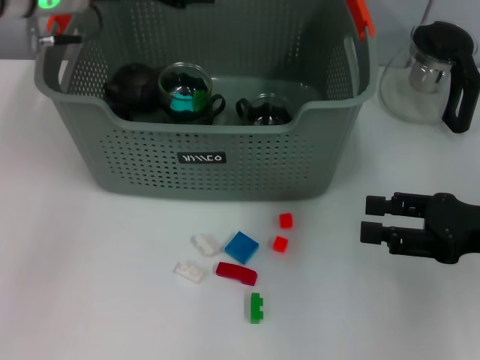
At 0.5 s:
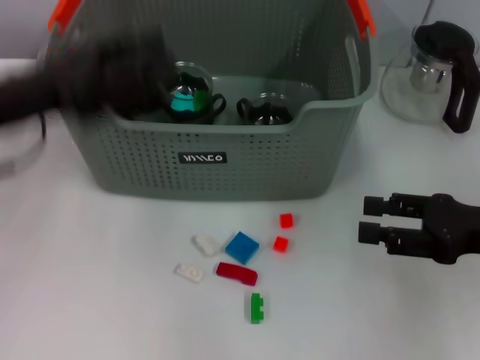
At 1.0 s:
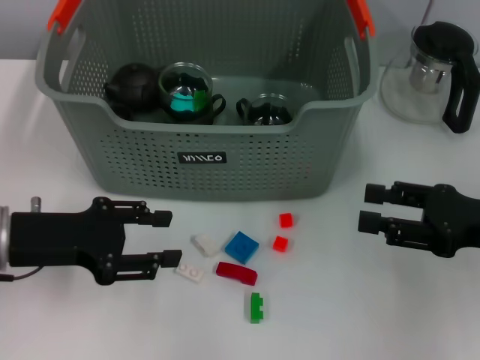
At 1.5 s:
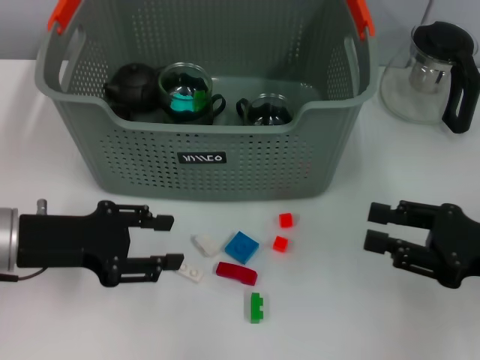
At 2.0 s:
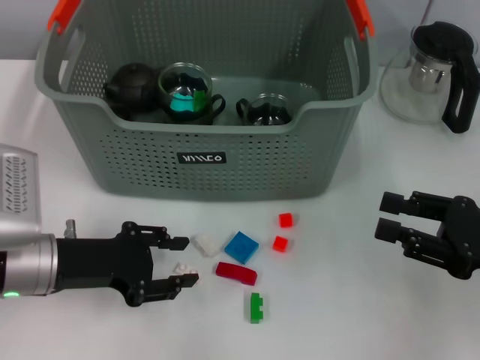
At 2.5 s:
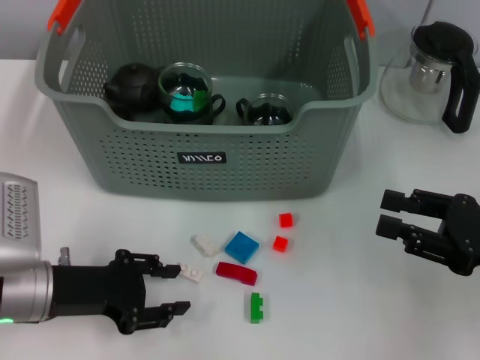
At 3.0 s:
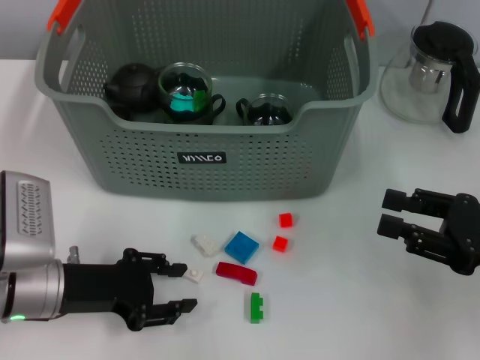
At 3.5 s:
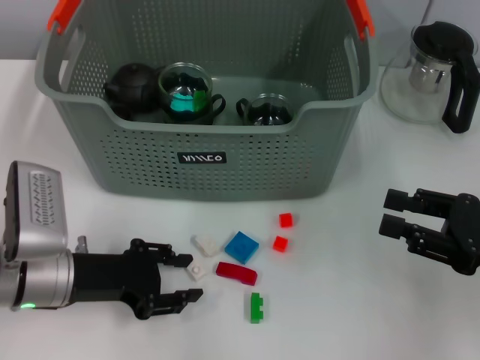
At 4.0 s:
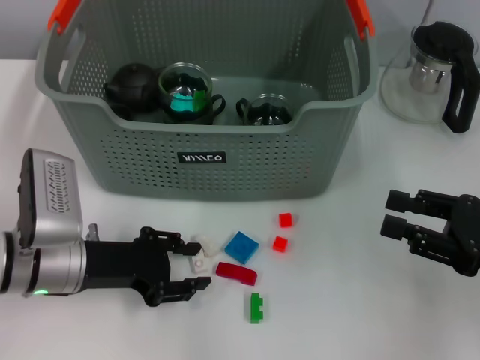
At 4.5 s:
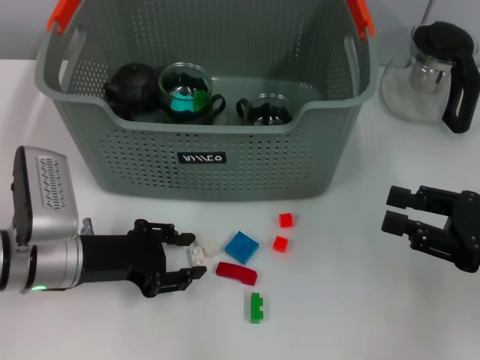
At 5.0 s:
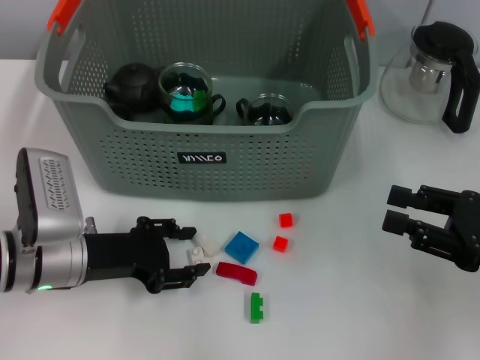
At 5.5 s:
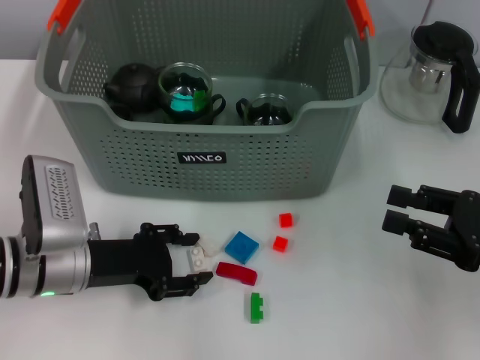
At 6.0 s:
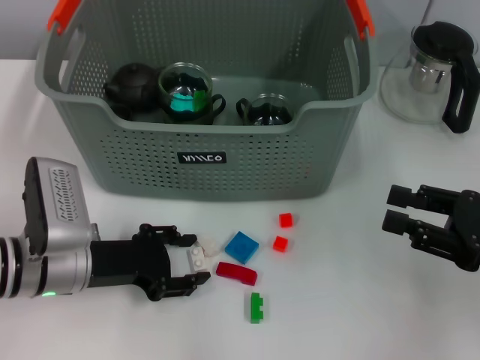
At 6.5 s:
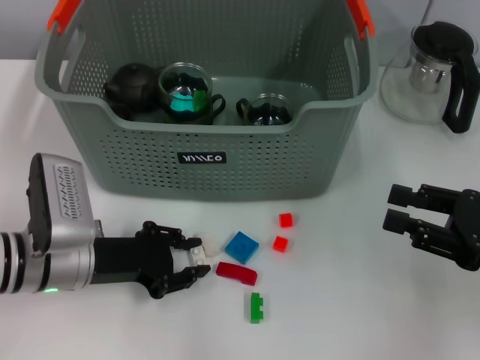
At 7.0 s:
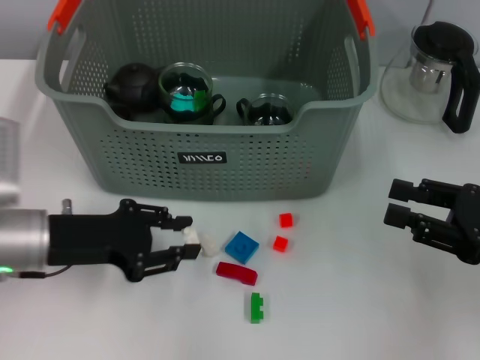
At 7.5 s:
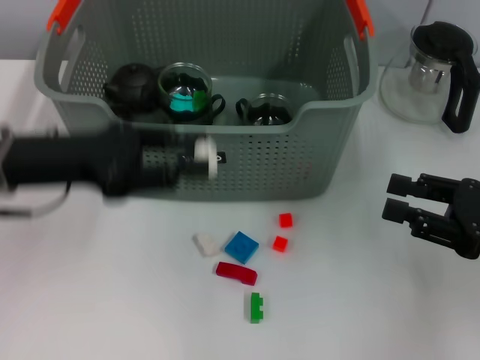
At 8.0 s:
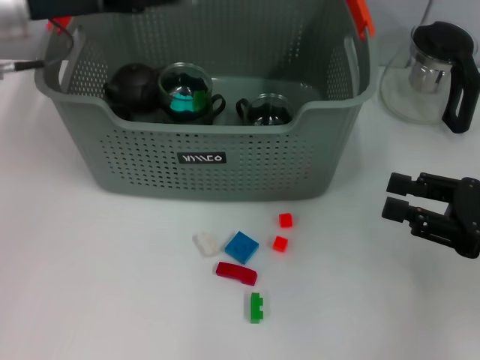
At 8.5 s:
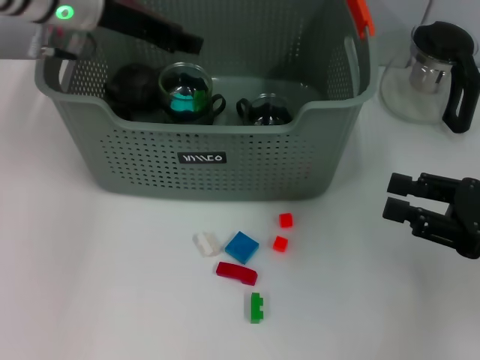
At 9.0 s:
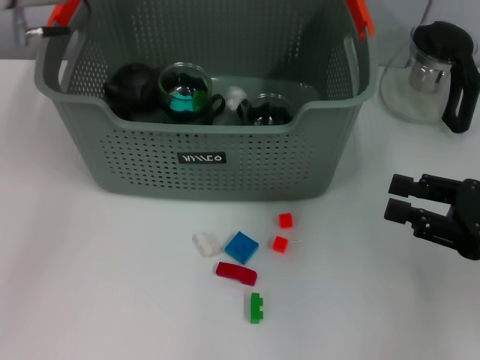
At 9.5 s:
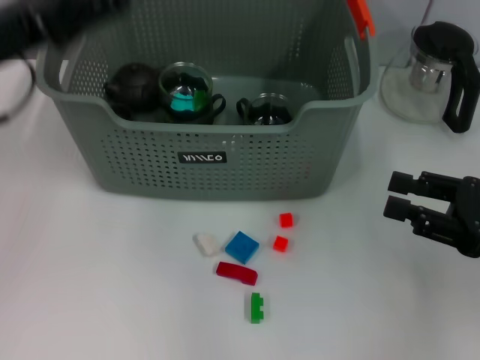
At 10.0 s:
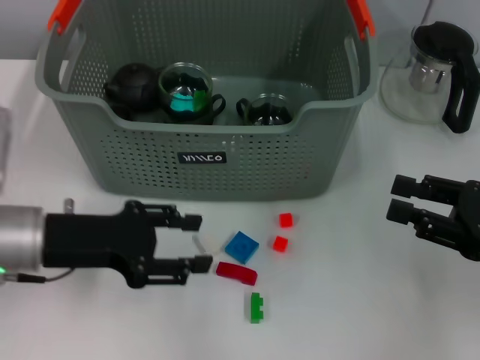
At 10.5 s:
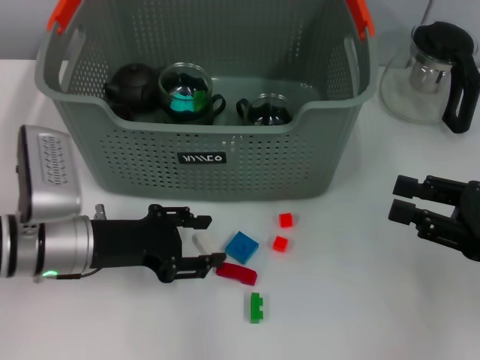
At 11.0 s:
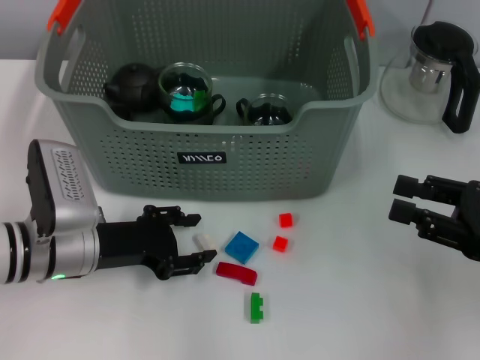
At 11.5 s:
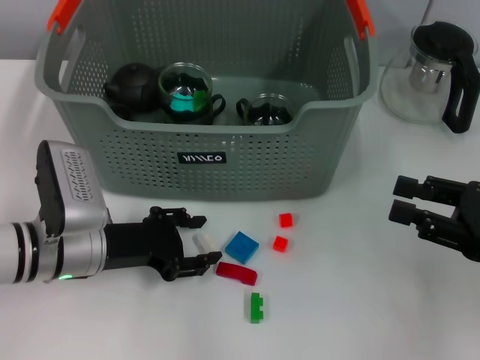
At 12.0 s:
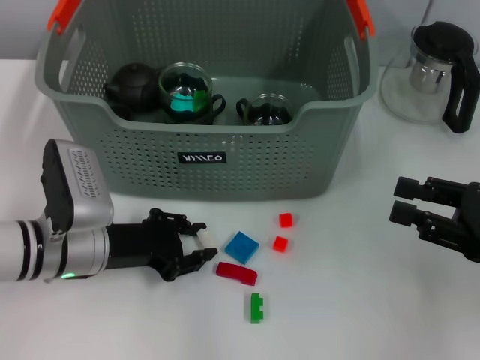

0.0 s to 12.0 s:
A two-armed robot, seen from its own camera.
Task of the whole recording: pick up the teacup on the table and place it into the storage bin, pick up the block on the table and place it into the storage bin.
Step, 0.0 to 6.0 s: Grasp the white block with left gripper.
Step, 6.5 to 8.5 s: Place the white block in the storage box with left gripper.
Step, 9.0 to 11.5 s: Grasp the white block with left gripper.
0.0 to 2.0 s: The left gripper heads downward and backward, covering approximately 25 cm.
2.0 to 4.0 s: The grippers move only a little.
4.0 to 6.0 s: Both grippers stay put.
6.0 to 8.0 s: The left gripper moves upward and forward, about 25 cm.
8.0 to 10.0 s: The left gripper is displaced backward and downward by roughly 20 cm.
10.0 to 12.0 s: The left gripper moves downward, some 5 cm.

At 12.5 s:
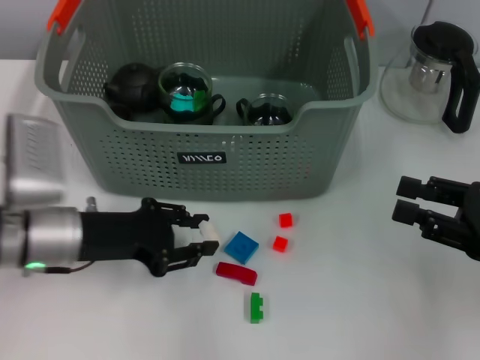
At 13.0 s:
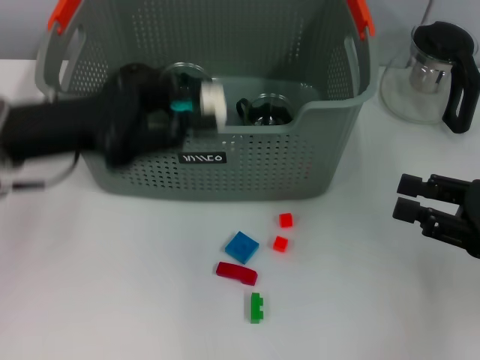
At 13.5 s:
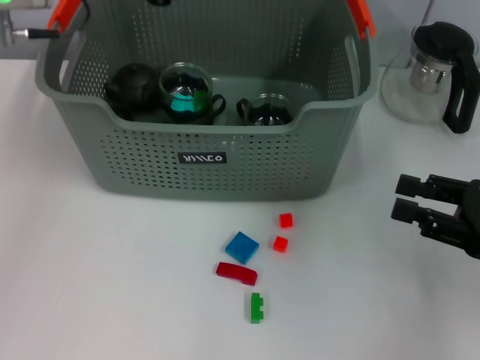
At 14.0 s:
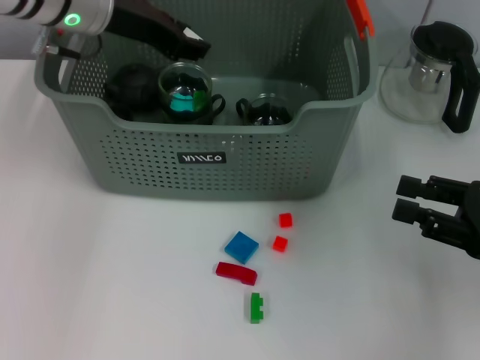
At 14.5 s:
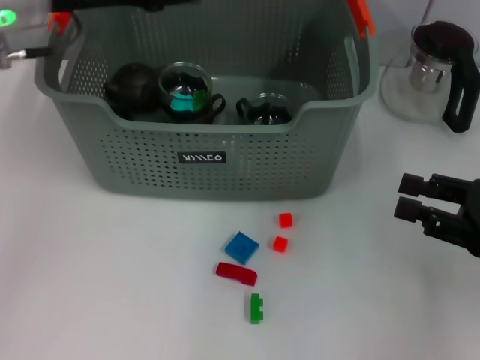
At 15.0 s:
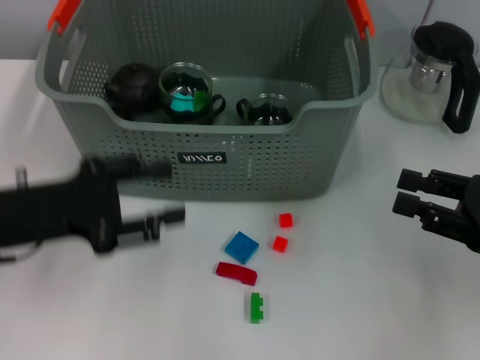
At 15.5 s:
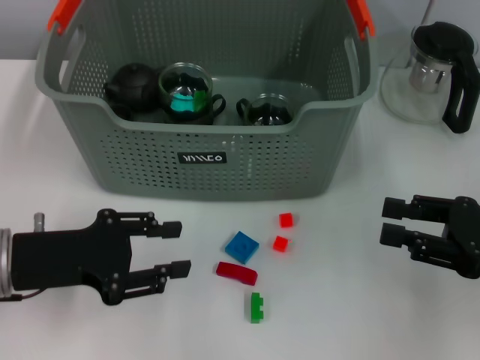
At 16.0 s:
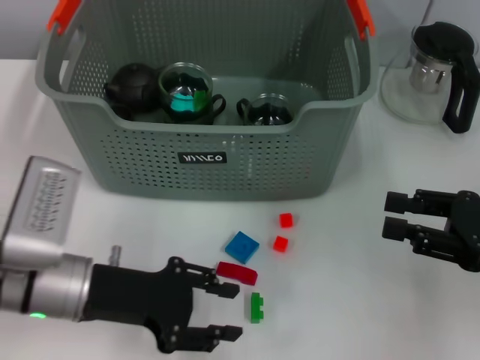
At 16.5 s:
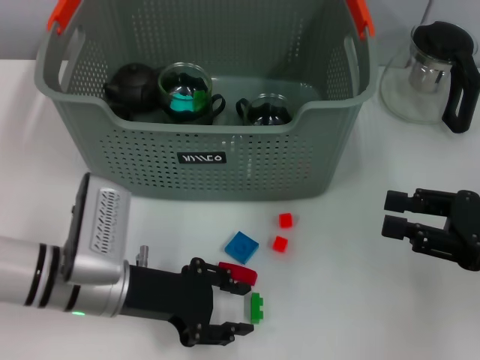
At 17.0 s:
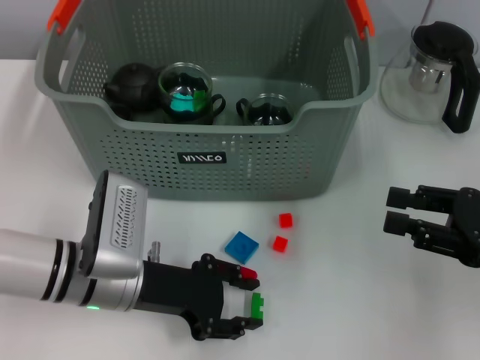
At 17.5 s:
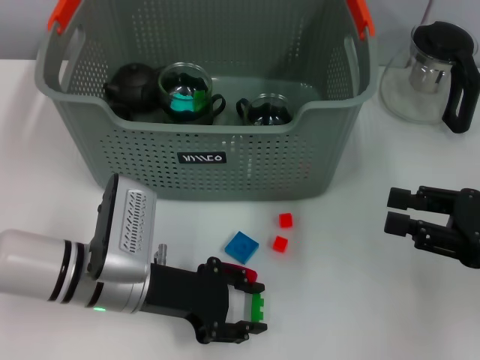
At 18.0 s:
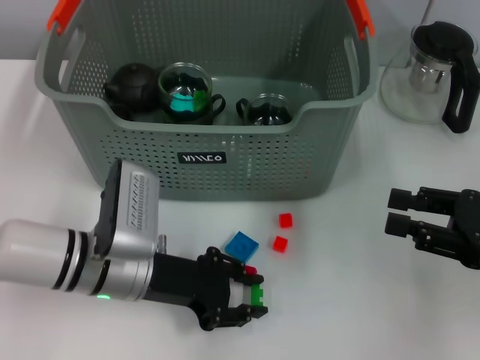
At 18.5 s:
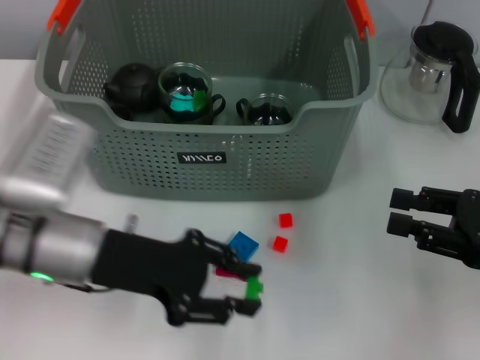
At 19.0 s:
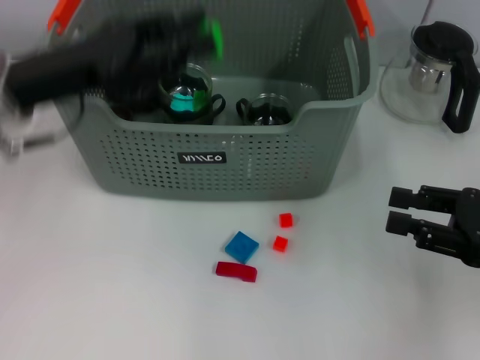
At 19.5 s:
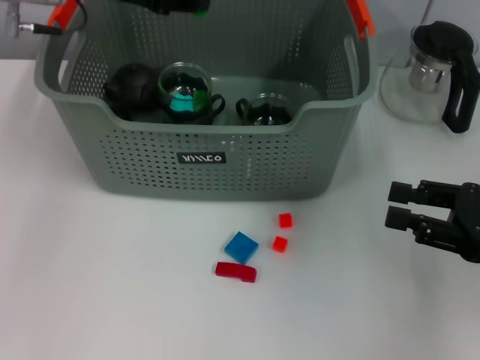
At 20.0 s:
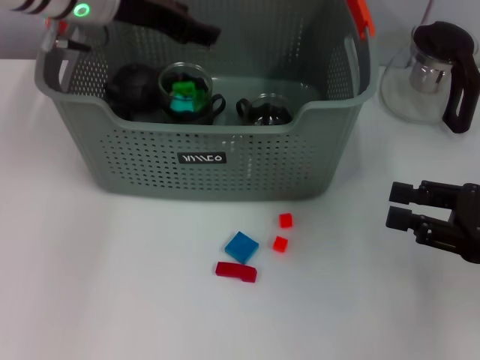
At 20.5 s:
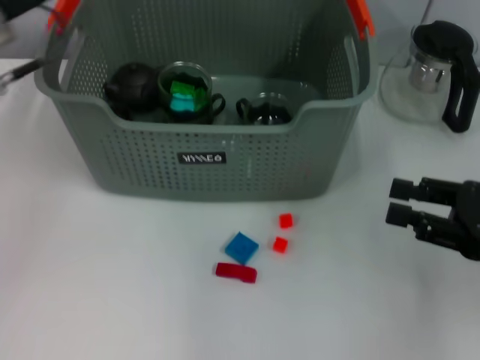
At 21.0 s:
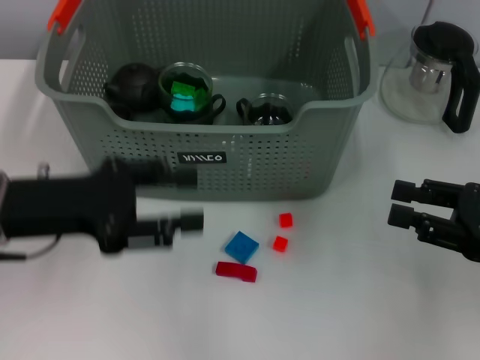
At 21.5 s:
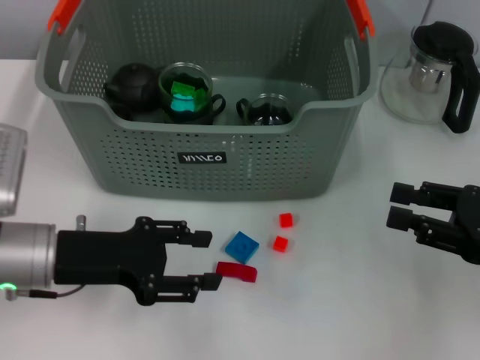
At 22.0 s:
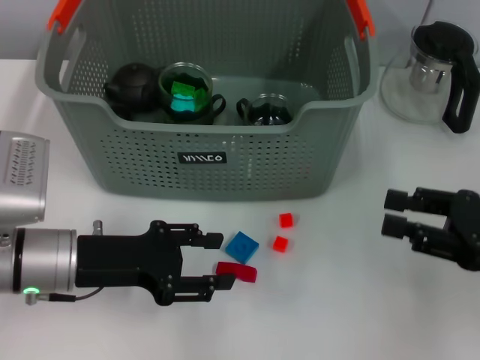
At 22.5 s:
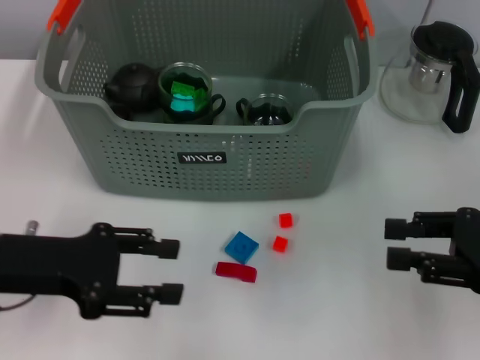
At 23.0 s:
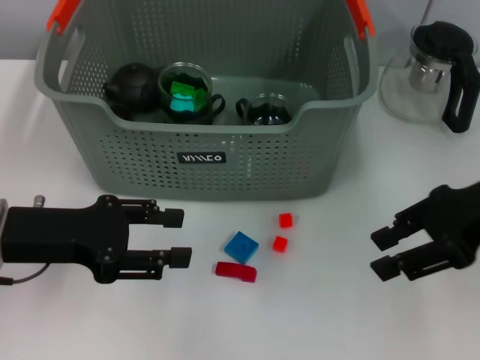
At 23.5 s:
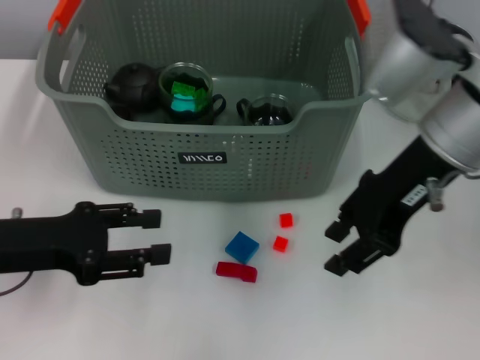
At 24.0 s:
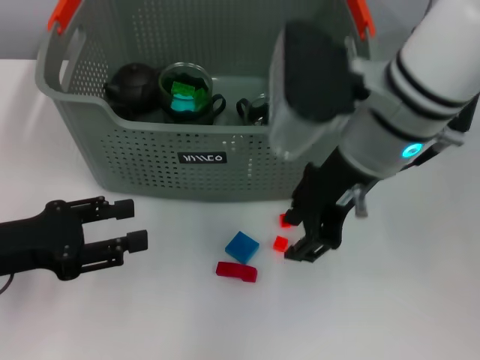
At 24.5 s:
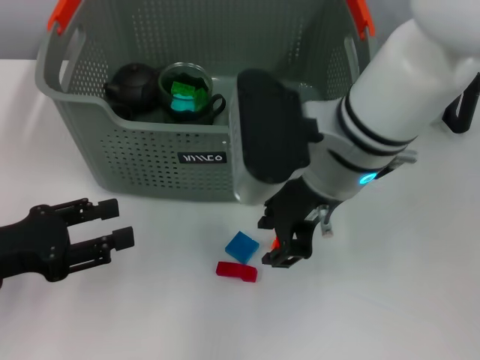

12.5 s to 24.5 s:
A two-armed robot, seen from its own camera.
Task of the whole recording: pick up the teacup on the table and place it into the storage bin, pick up the block on the table and place it into the storage bin.
Step, 12.5 to 14.0 s: Place the white block in the storage box with left gripper.
Step, 14.5 to 17.5 s: Grasp the green block with left gripper.
Step, 18.0 to 19.5 s: Place the green block in the storage box with left gripper.
12.5 to 14.5 s: The left gripper moves upward and forward, approximately 20 cm.
14.5 to 16.5 s: The left gripper moves downward and backward, some 25 cm.
16.5 to 18.5 s: The left gripper is displaced upward by approximately 5 cm.
18.5 to 20.5 s: The left gripper moves upward, forward and to the left, approximately 15 cm.
20.5 to 22.5 s: The left gripper goes approximately 15 cm backward and downward.
22.5 to 24.5 s: The right gripper goes roughly 25 cm to the left; the left gripper changes place by roughly 5 cm.

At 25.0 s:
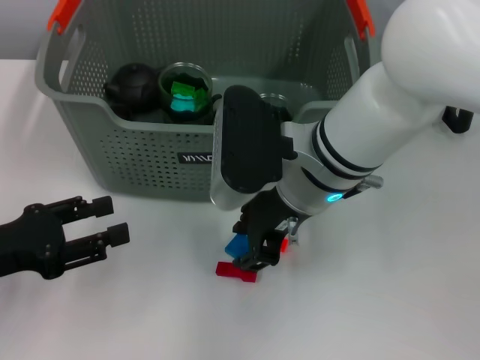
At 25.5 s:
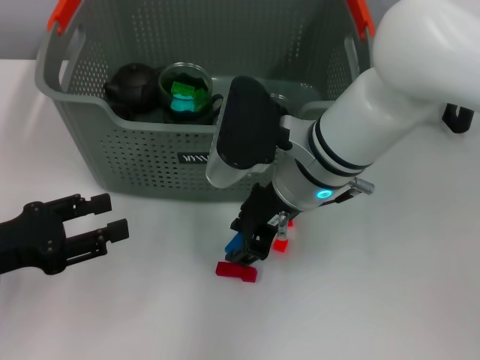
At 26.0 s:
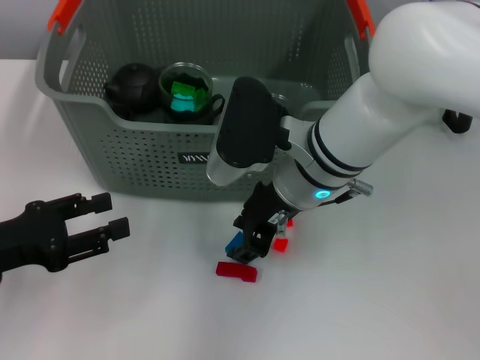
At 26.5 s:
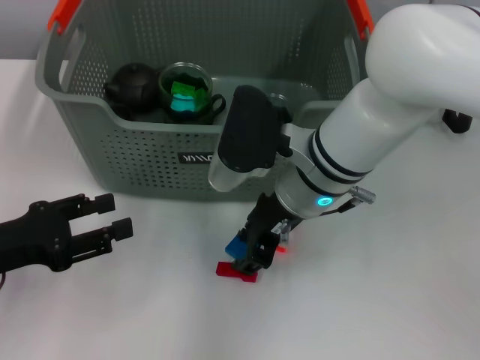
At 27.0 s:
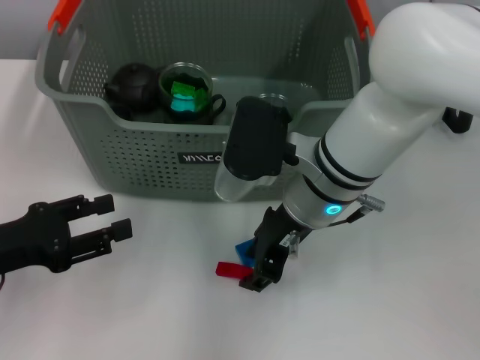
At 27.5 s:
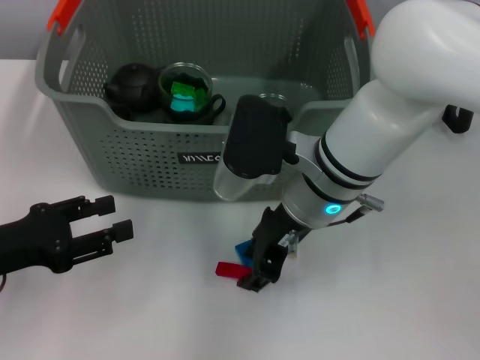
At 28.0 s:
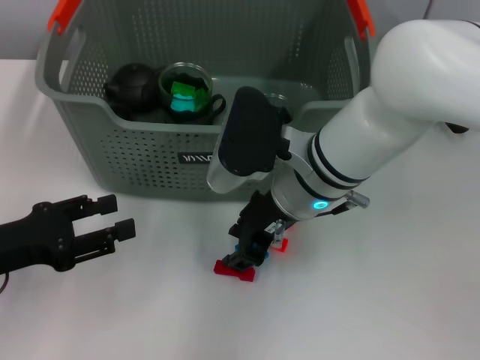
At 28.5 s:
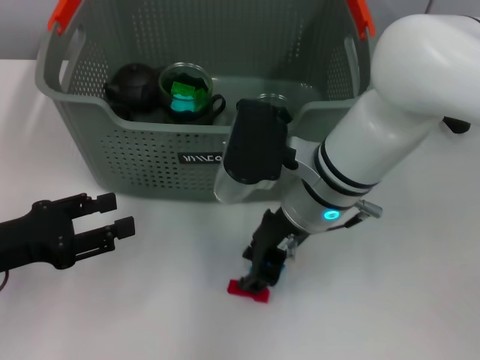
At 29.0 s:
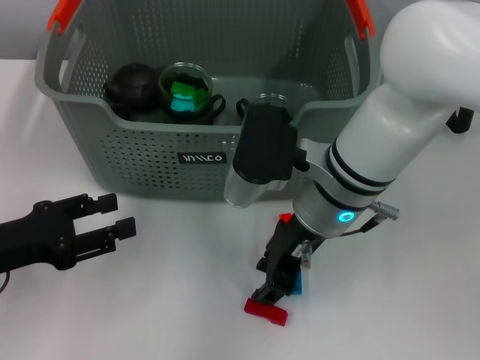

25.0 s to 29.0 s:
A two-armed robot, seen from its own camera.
Task of the whole recording: pick up the teacup on the table and place it into the storage bin, pick up the block on the table and place it into the storage bin.
25.0 to 29.0 s: The grippers move only a little.